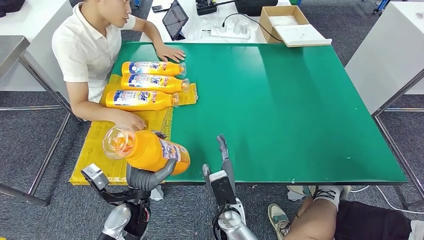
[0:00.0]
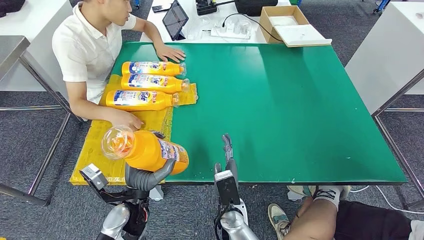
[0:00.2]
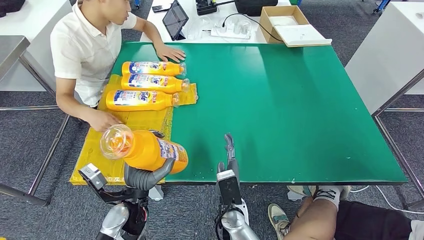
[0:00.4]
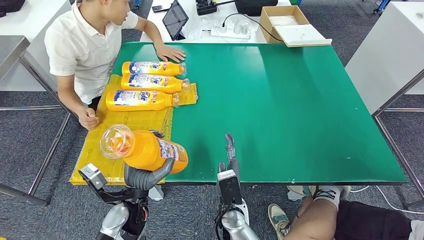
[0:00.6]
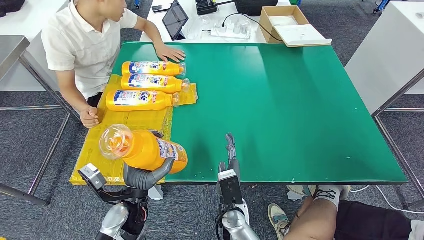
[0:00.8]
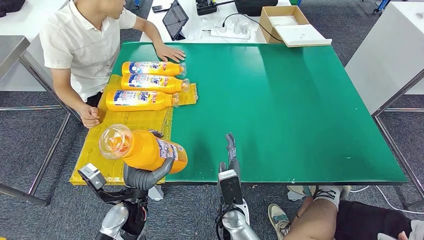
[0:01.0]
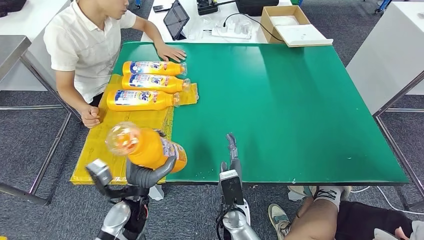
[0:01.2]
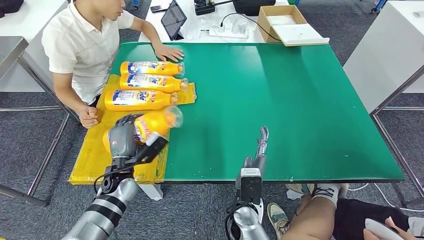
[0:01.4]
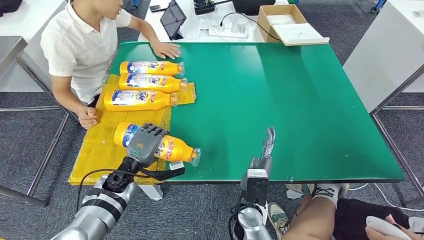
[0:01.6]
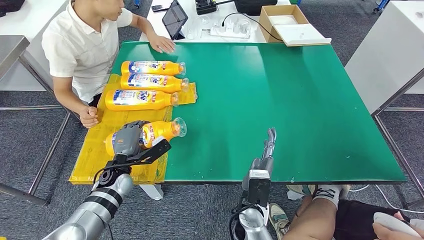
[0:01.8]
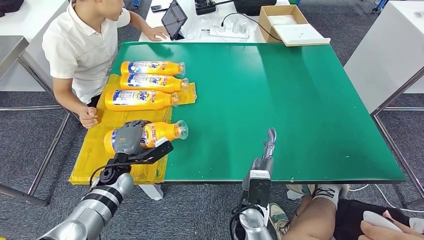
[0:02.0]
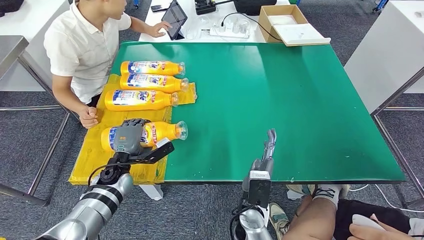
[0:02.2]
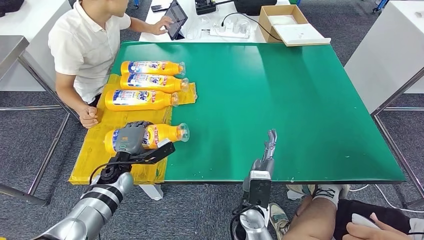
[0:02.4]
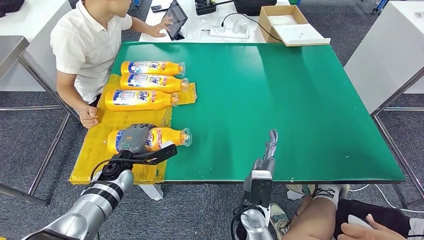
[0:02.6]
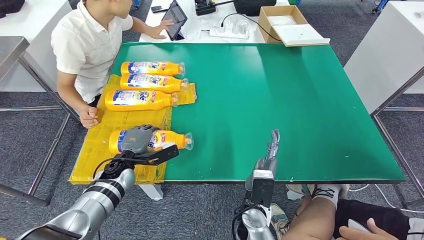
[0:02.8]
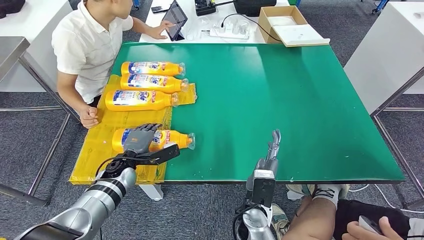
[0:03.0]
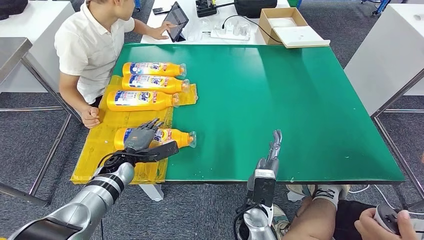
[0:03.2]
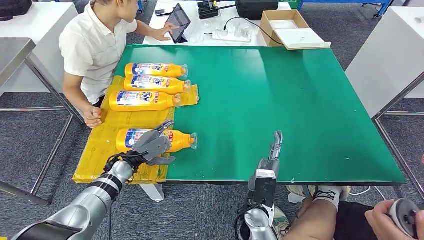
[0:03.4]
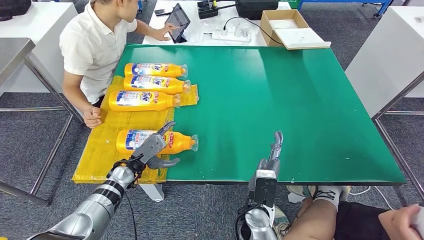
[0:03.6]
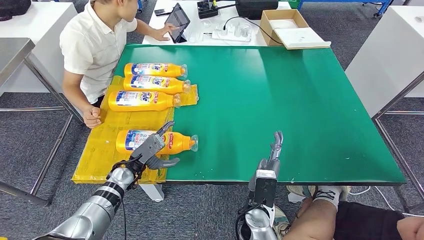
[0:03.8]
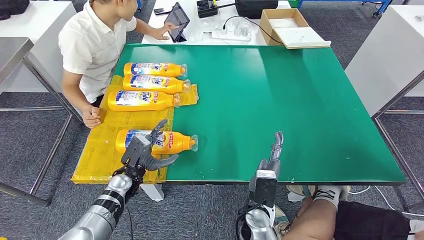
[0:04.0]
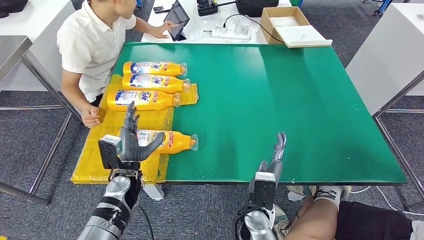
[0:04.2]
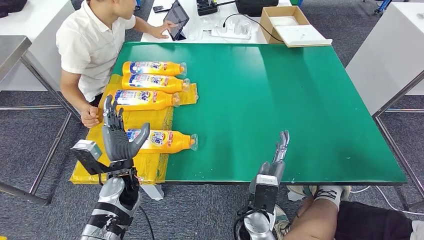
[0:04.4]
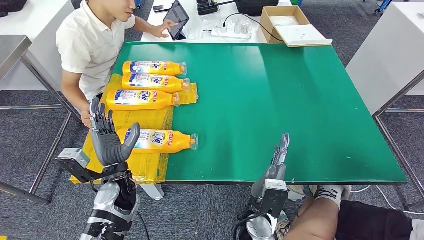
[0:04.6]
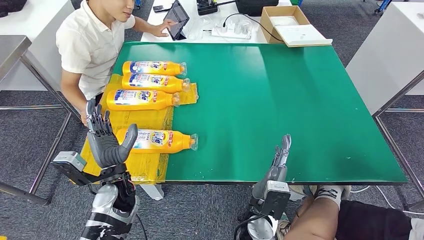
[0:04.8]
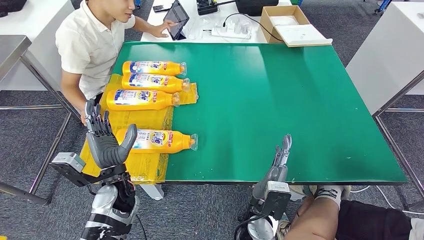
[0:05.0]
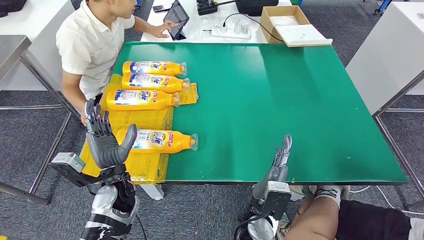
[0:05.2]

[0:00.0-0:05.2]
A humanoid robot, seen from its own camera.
Step, 0:00.0 to 0:05.2: Flip the fast-moving consumer goods bottle to the front side.
0:00.0 to 0:01.8: The left hand goes about 15 cm forward and to the left, while the right hand is displaced to the right by some 5 cm.
